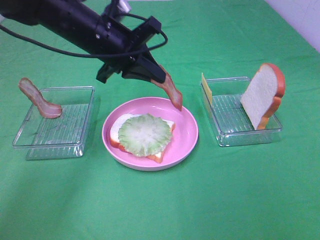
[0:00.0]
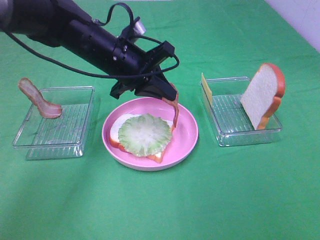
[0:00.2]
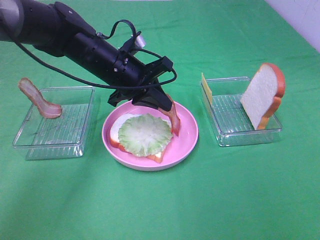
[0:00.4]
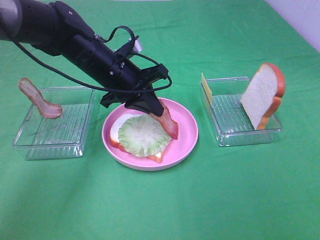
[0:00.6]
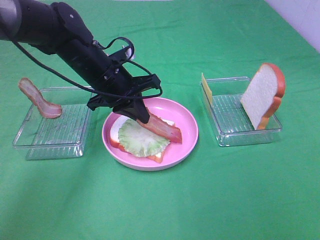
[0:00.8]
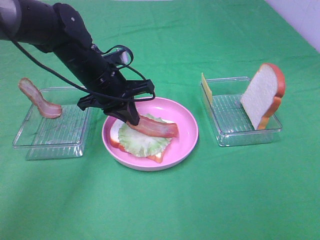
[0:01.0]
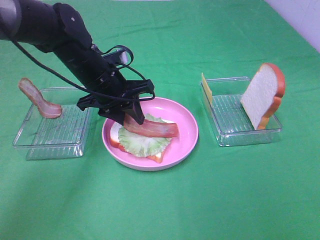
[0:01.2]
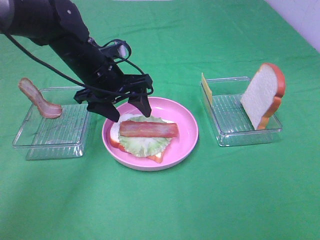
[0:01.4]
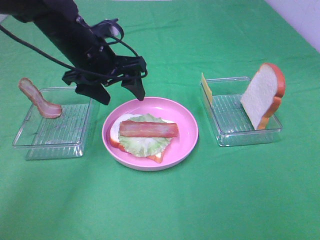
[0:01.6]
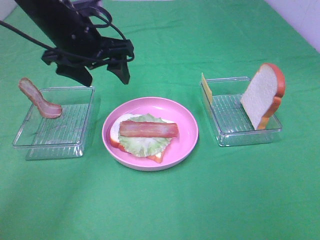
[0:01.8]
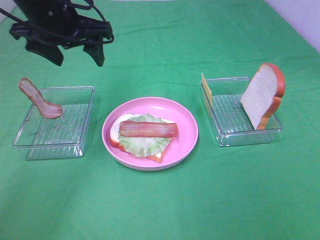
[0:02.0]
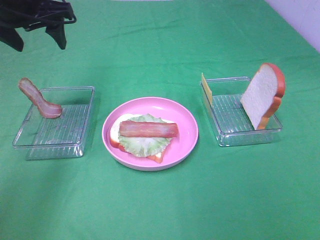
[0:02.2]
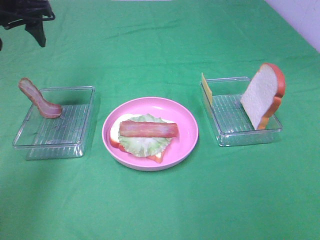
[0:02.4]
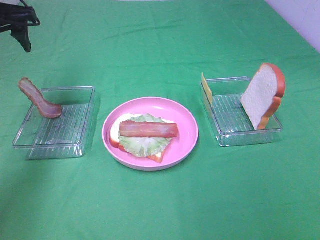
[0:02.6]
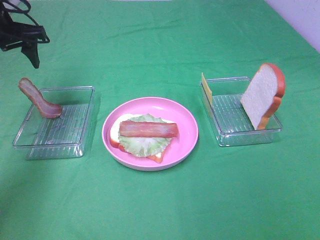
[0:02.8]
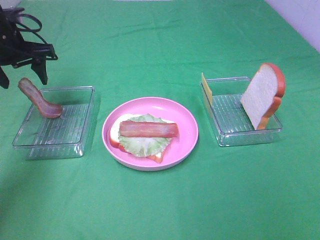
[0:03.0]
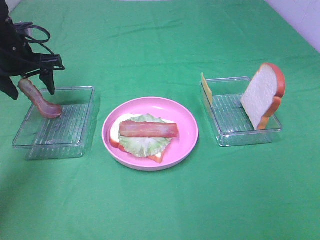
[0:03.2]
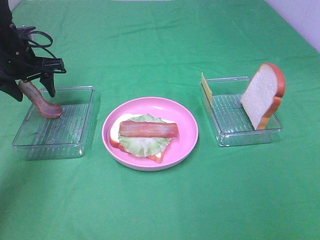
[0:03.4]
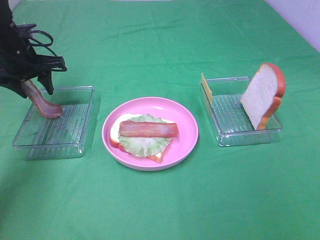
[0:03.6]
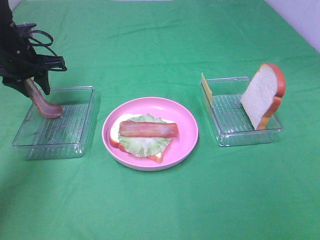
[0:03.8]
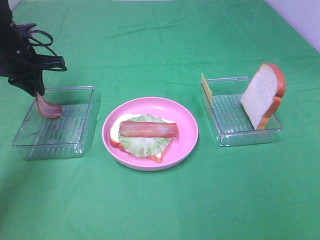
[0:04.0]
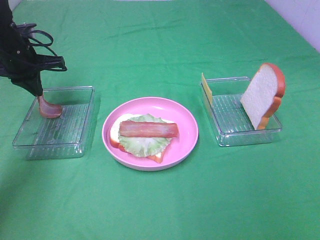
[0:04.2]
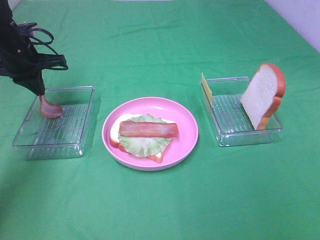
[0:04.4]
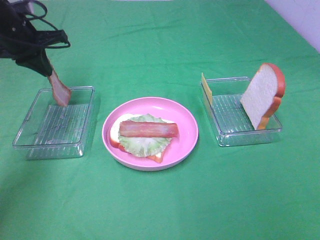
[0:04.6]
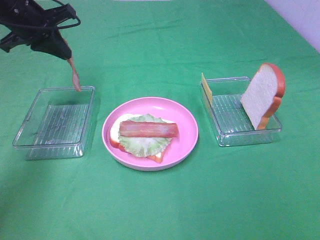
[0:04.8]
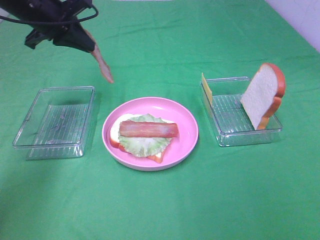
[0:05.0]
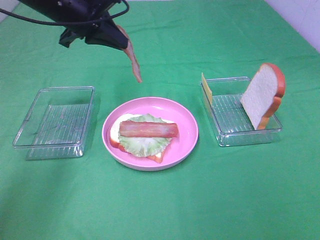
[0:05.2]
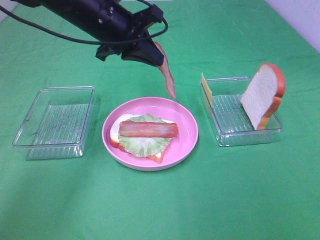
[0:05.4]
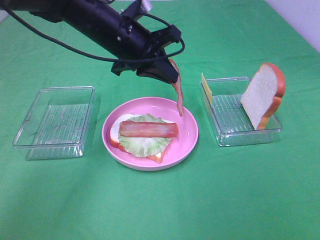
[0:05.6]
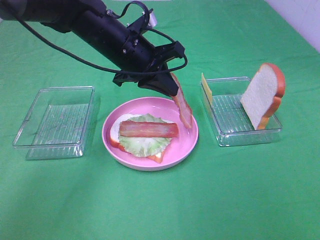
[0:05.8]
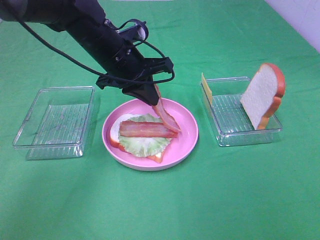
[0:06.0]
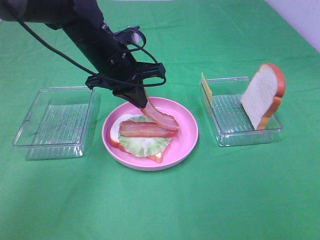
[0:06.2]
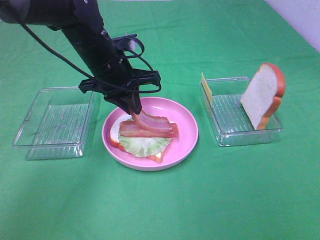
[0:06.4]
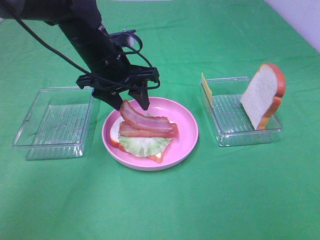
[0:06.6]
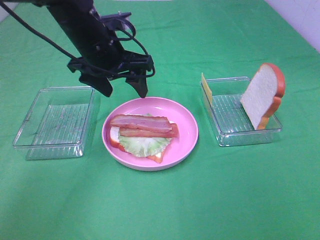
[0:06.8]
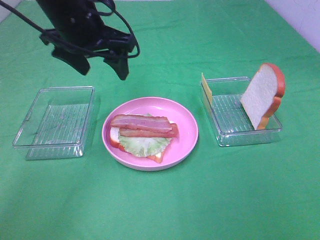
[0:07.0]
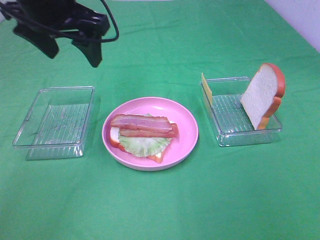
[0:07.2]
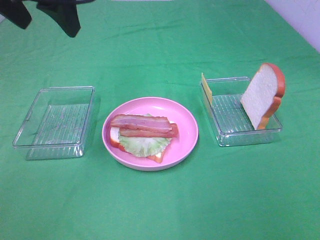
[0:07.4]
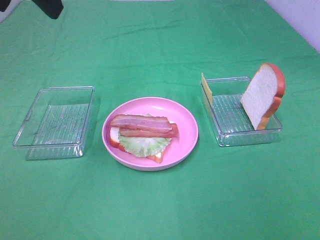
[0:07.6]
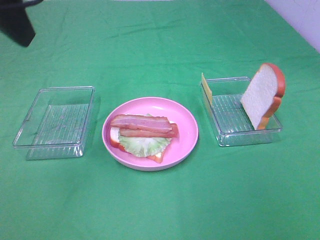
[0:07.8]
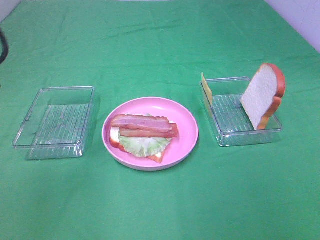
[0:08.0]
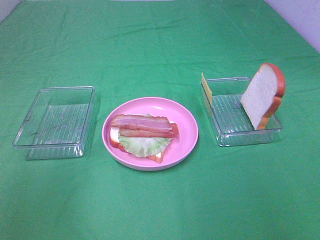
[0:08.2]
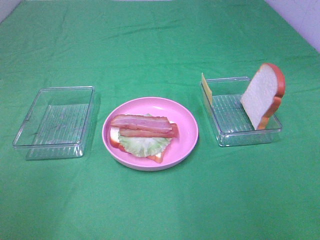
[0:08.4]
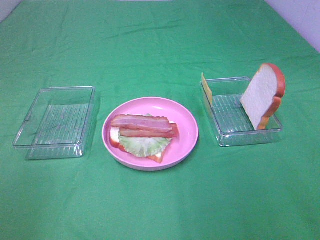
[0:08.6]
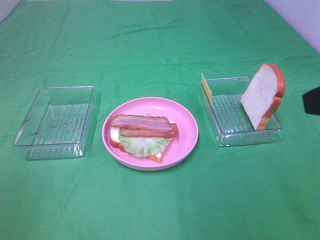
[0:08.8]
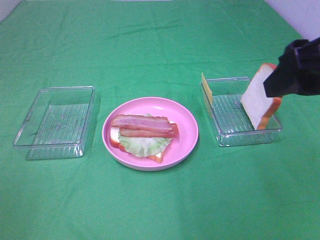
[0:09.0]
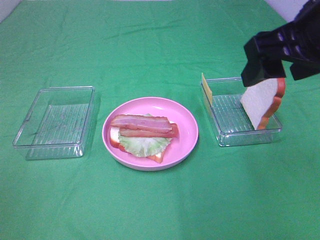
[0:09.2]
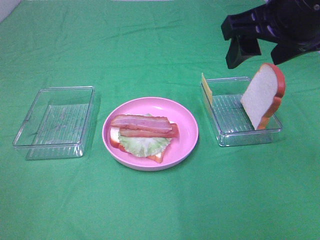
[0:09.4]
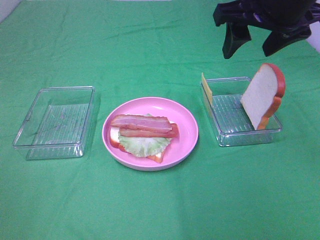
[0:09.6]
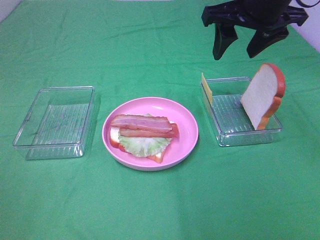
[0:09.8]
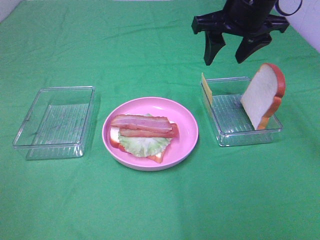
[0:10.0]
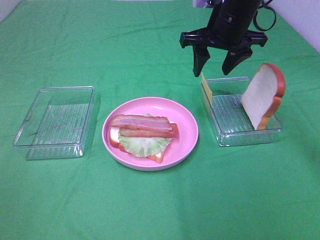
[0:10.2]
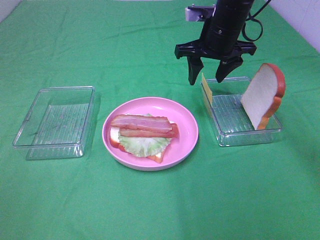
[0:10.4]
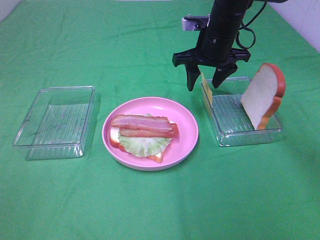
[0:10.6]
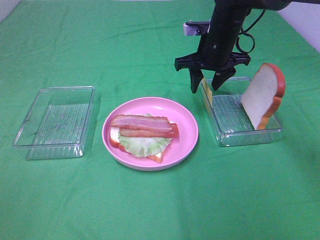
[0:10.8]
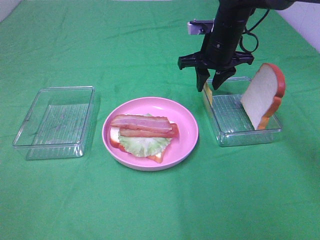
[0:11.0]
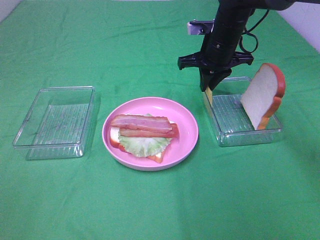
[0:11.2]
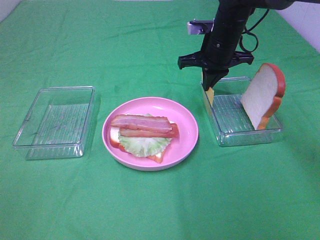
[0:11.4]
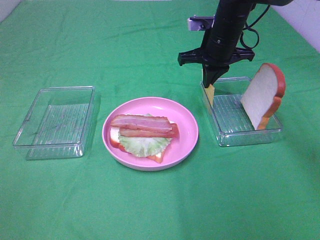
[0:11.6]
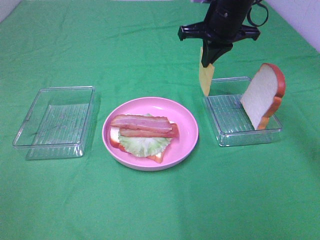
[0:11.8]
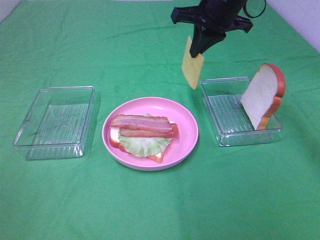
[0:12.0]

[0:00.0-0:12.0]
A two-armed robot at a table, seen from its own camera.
Task of the whole recording: Make sandwiches.
Step, 0:00.0 to 0:01.4: Left hand:place bacon on lettuce slice.
Step, 0:01.6 to 0:04.4: Left hand:grab the bacon.
Step, 0:04.6 to 0:07.0: Left hand:place bacon on bacon.
Step, 0:07.2 to 0:11.6: Left hand:grab the cheese slice.
0:00.0 to 0:01.6: The left gripper opens.
0:01.6 to 0:03.0: The left gripper shifts some 15 cm to the left.
0:03.0 to 0:04.4: The left gripper closes its fingers.
0:04.4 to 0:06.0: The left gripper is displaced to the right by roughly 20 cm.
0:06.0 to 0:07.6: The left gripper shifts about 25 cm upward, backward and to the left, and opens.
0:07.6 to 0:09.0: The right gripper goes approximately 20 cm forward and to the left; the left gripper is displaced backward, to the left and downward by roughly 35 cm.
0:09.0 to 0:10.4: The right gripper moves forward and downward, roughly 25 cm.
0:10.4 to 0:12.0: The right gripper is displaced upward by approximately 5 cm, and closes up.

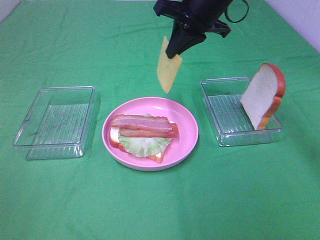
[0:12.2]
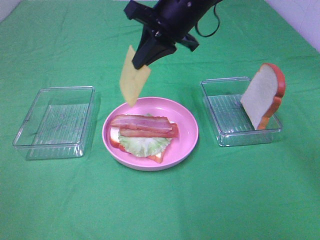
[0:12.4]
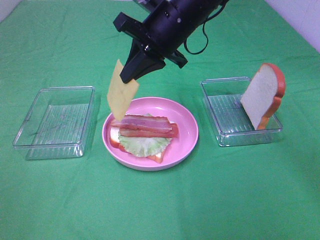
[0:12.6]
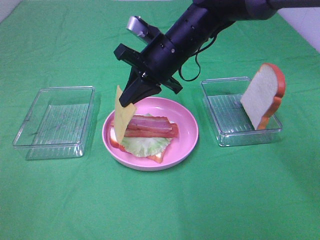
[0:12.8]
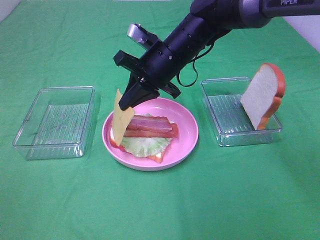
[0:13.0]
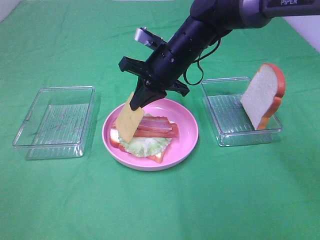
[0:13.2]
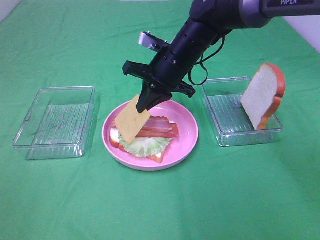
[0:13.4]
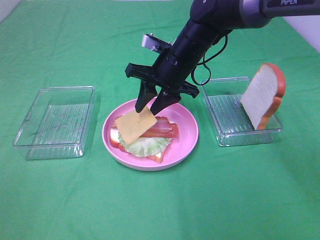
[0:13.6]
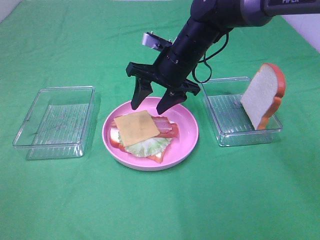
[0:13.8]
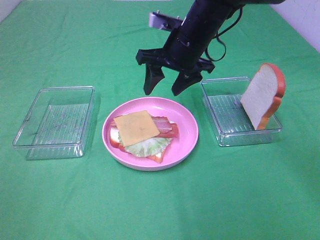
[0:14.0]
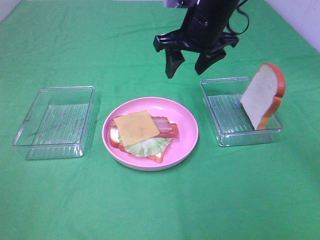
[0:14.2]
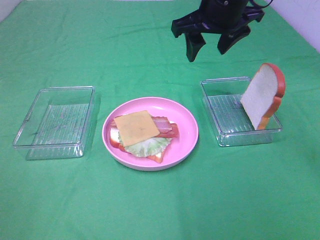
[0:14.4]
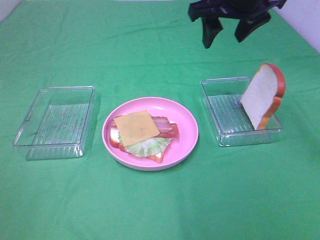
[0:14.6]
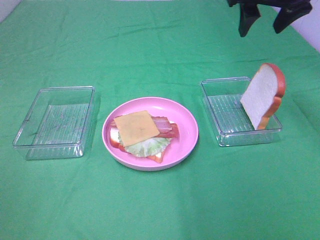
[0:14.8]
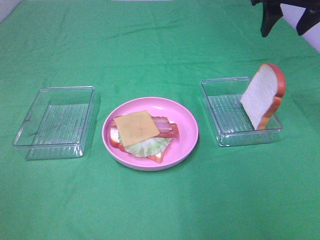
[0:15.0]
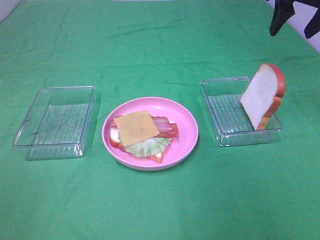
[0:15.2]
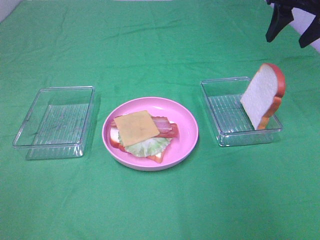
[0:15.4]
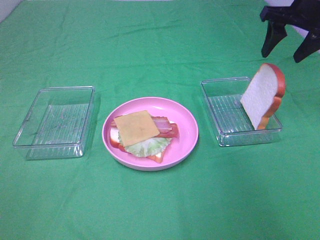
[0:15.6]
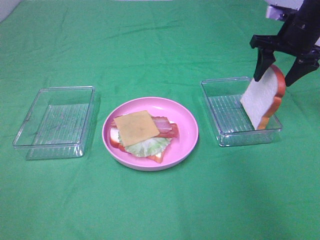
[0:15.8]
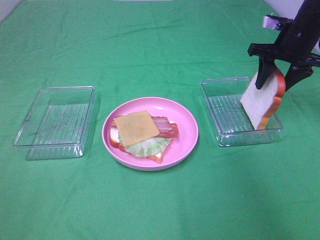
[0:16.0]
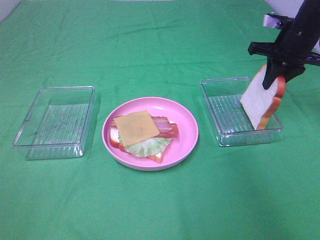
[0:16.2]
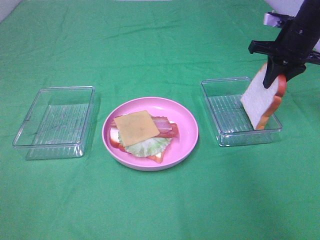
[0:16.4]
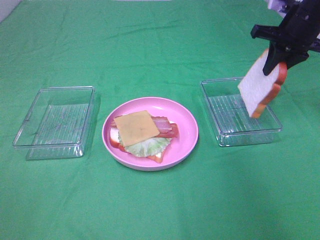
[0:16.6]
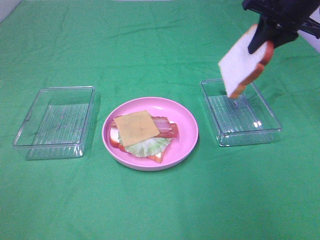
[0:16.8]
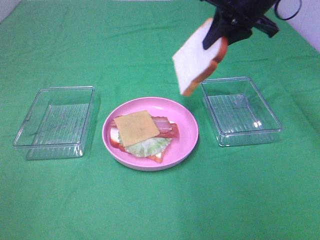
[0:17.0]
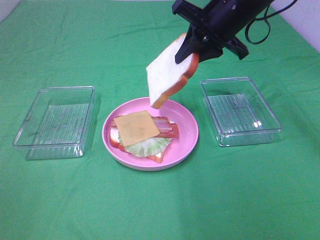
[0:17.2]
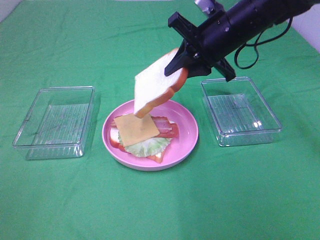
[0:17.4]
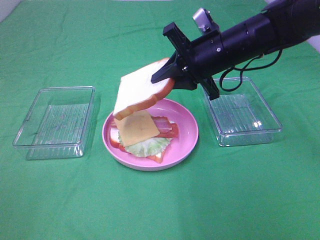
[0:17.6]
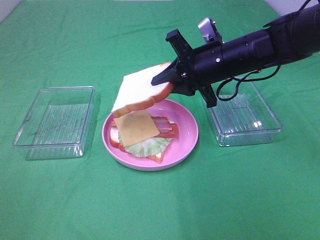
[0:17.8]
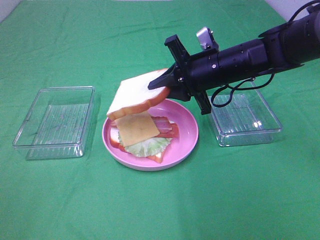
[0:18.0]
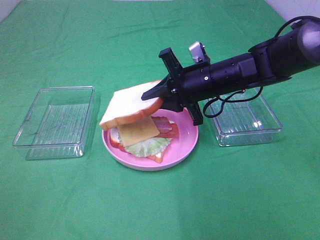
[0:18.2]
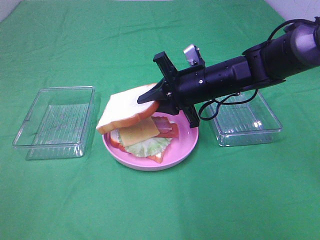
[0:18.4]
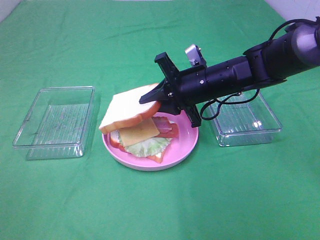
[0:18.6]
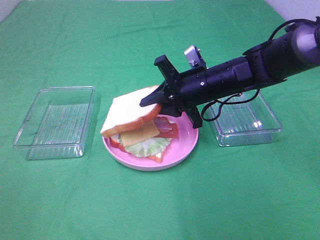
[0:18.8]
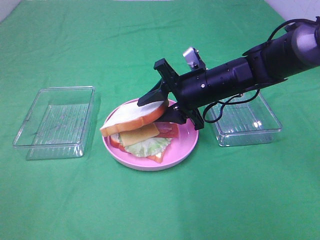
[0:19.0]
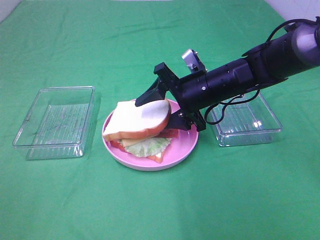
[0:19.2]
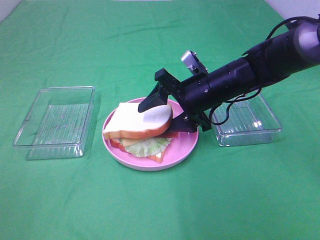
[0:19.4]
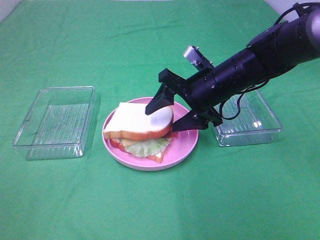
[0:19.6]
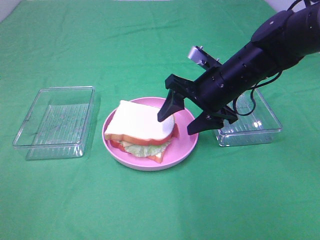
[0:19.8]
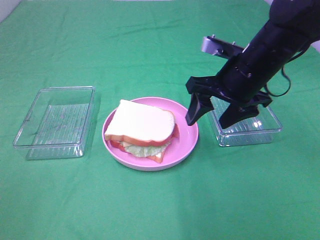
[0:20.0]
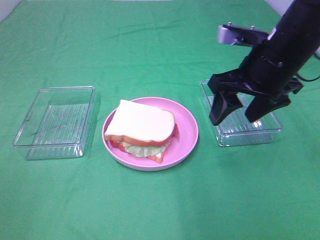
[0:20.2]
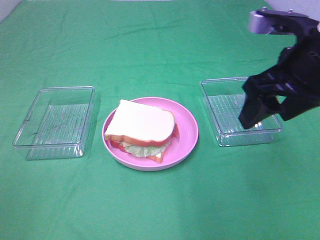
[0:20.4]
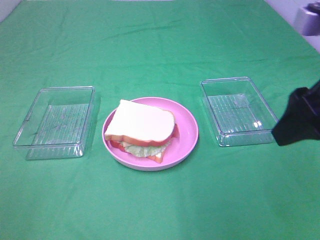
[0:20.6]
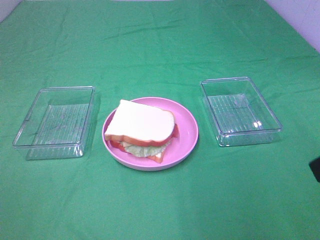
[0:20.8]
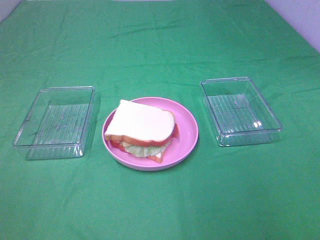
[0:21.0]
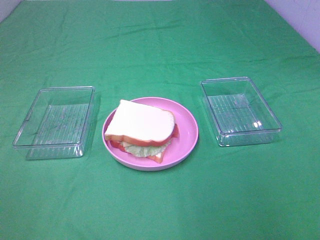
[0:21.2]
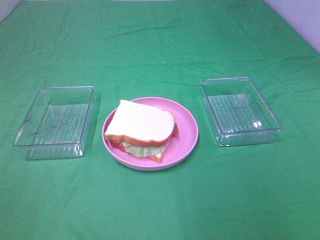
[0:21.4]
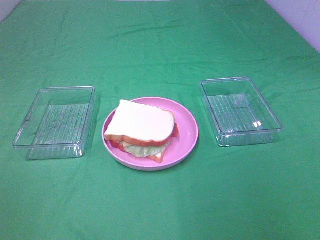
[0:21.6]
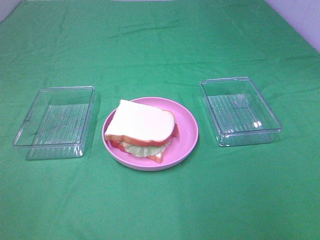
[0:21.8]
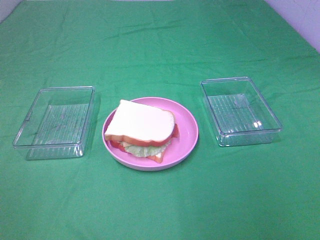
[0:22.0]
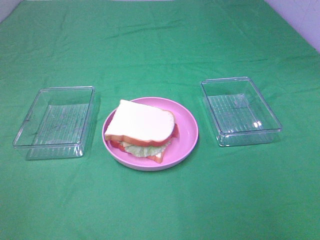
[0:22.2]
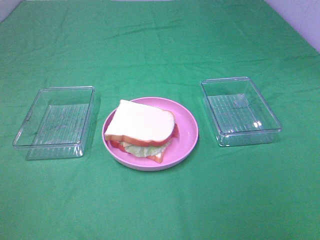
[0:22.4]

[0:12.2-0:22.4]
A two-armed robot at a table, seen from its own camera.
Task of the whole recording: Make sandwiches.
Step, 0:14.2 to 0:16.2: Right hand:grab the bread slice.
Step, 0:16.4 to 0:20.0: Right hand:place the bread slice on the cheese slice.
0:12.2 to 0:13.6: The right gripper is displaced downward by roughly 10 cm, and opens up.
0:13.6 to 0:15.2: The right gripper shifts about 25 cm to the right and upward.
0:15.2 to 0:16.6: The right gripper goes about 5 cm downward, and closes up.
0:16.6 to 0:18.0: The right gripper is displaced to the left, downward and backward by some 20 cm.
0:18.0 to 0:19.4: The right gripper opens up.
0:19.4 to 0:21.0: The right gripper heads backward, to the right and upward, covering some 35 cm.
